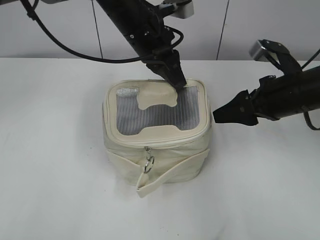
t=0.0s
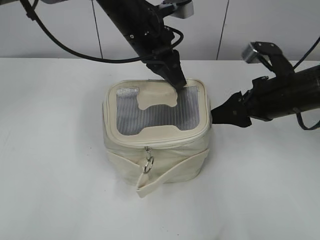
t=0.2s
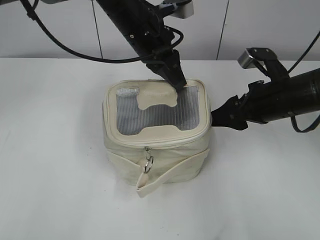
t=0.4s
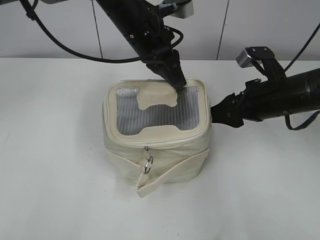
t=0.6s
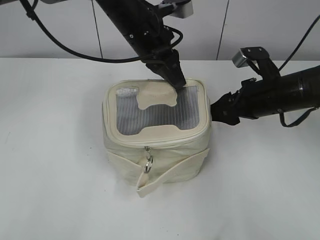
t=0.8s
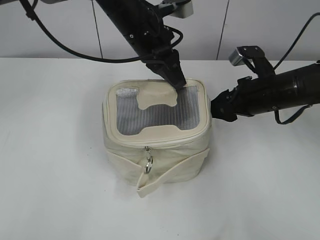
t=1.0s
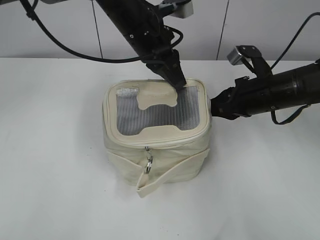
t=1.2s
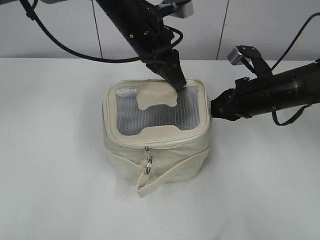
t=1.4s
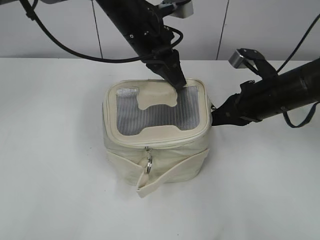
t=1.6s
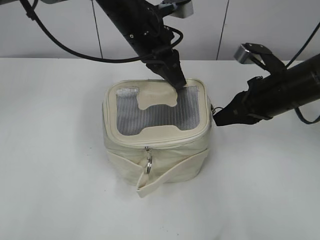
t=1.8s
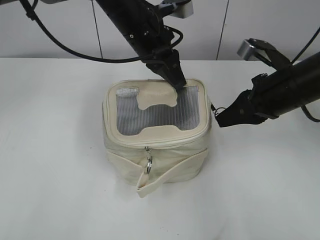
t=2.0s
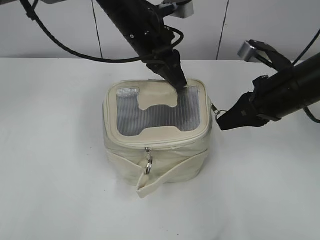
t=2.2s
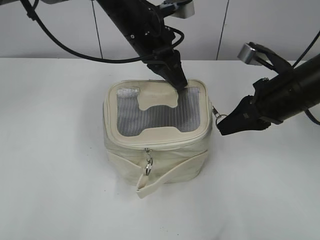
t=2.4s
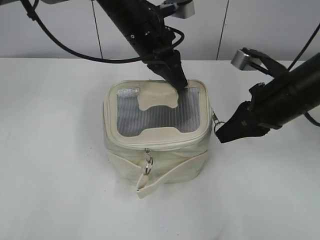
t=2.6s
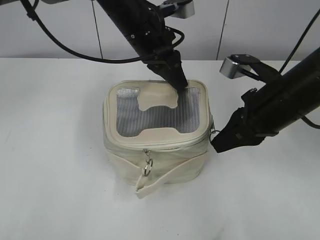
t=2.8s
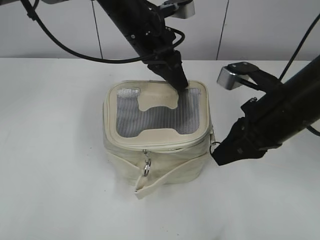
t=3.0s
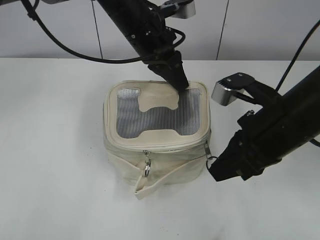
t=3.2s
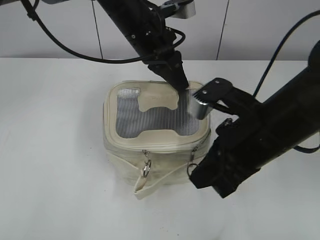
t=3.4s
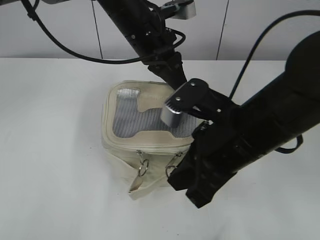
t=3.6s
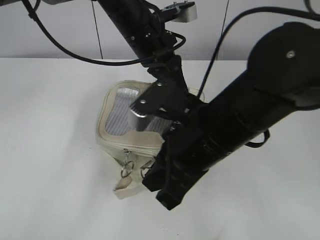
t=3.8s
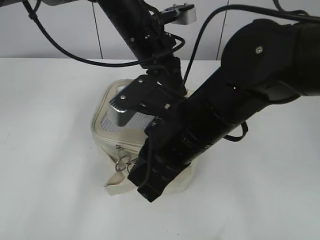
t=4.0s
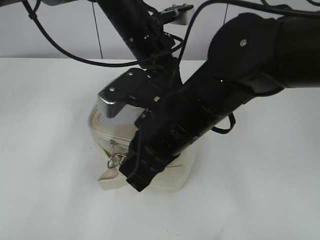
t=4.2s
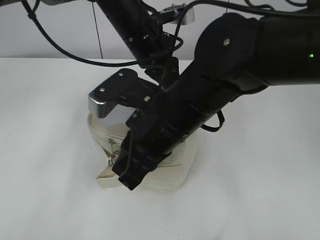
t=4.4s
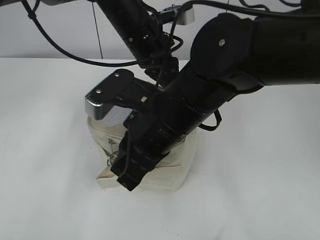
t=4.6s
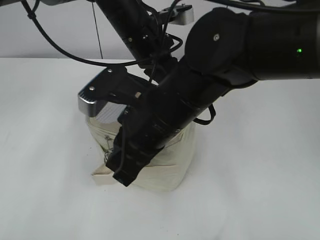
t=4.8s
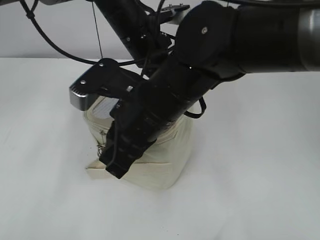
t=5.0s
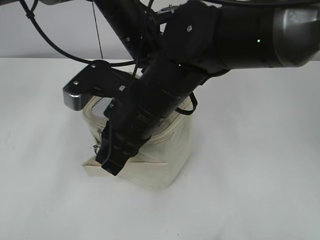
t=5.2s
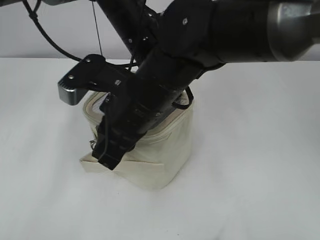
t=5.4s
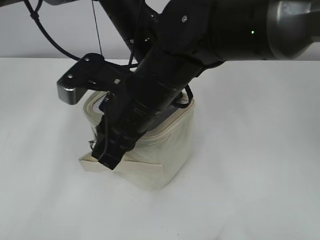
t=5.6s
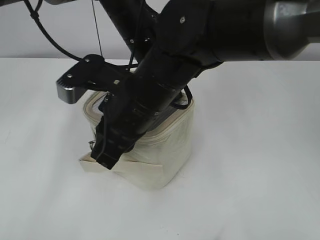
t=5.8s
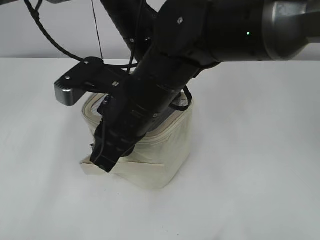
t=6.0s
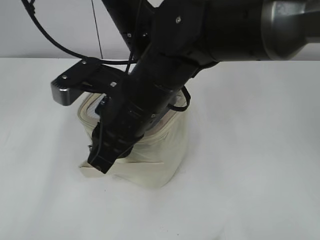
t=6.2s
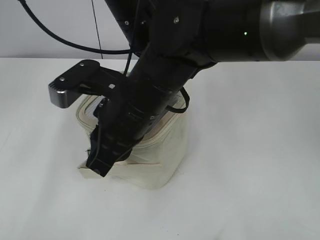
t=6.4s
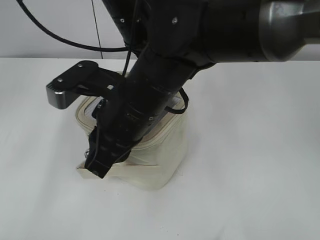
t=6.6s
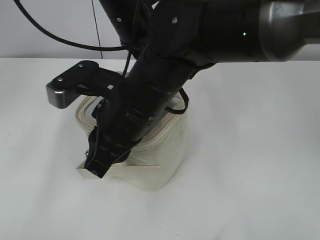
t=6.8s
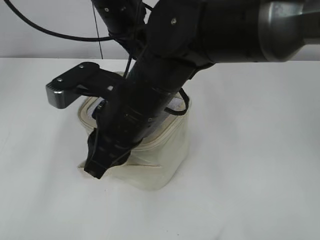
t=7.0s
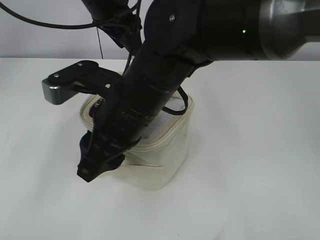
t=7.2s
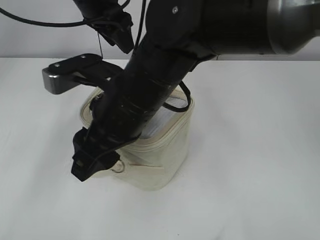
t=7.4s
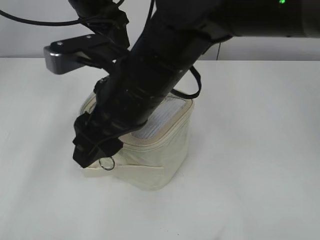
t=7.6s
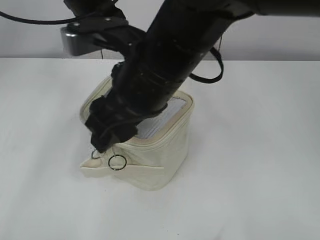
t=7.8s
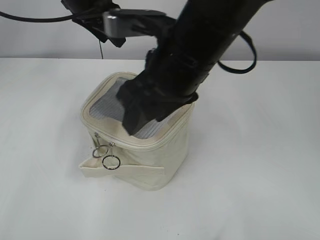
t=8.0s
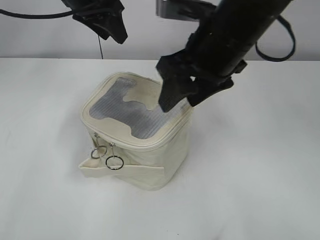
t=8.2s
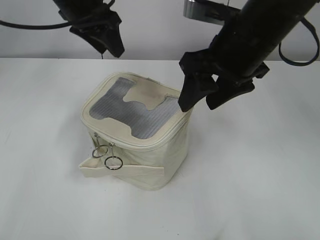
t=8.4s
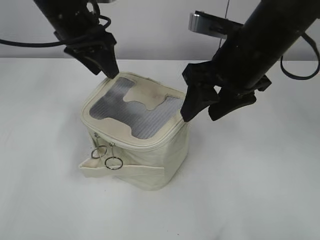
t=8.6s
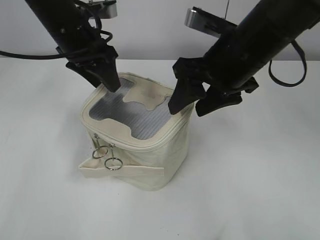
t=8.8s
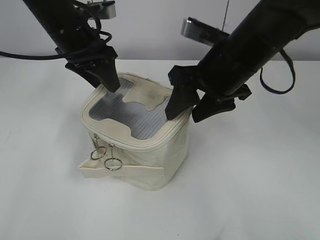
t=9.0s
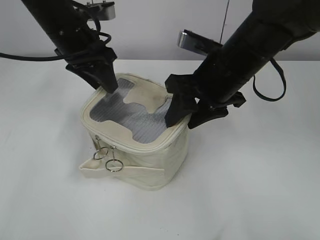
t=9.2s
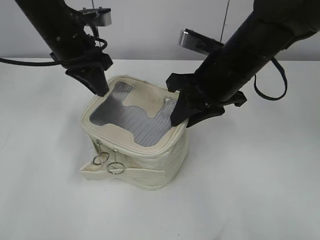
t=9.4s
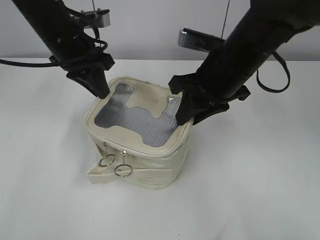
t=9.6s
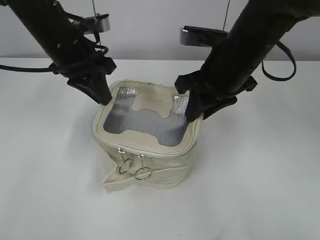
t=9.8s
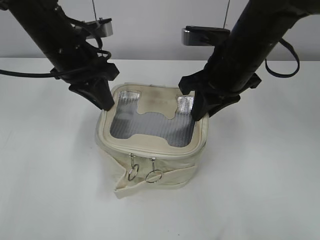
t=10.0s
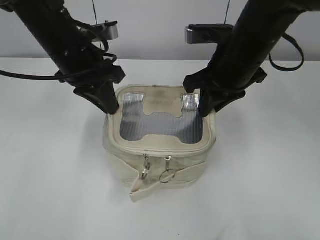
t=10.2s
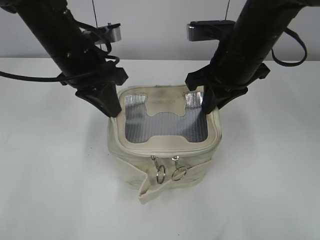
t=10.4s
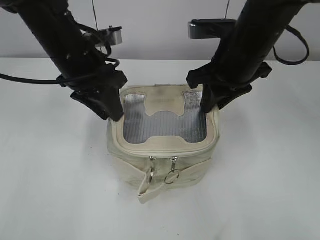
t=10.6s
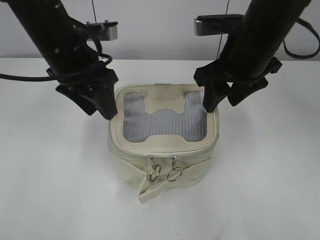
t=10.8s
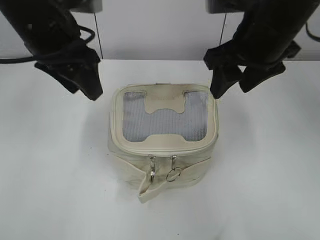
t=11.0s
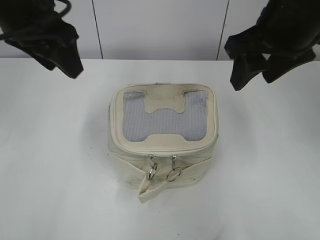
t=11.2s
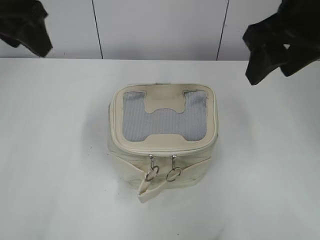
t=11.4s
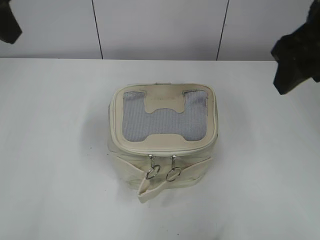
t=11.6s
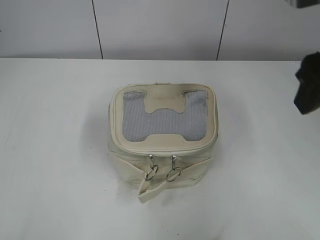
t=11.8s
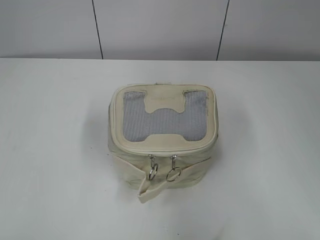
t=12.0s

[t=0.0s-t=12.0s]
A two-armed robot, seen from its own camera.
Step, t=0.0s to t=6.8s: Hold the bag with your left hand.
t=0.0s to t=1.6s: The right gripper closes its fingers.
t=1.6s to t=3.0s: The right gripper is displaced backward by roughly 5 cm.
t=3.0s to t=4.4s: The right gripper travels to the left by about 15 cm.
t=6.0s to t=7.6s: The right gripper opens. The left gripper is displaced to the left and upward by about 10 cm, and opens.
t=7.6s to t=9.0s: The right gripper is displaced to the right and forward by about 15 cm. Meanwhile the left gripper shifts approximately 5 cm downward.
t=9.0s to t=10.4s: The left gripper shifts by some 5 cm, and closes up; the right gripper closes.
t=10.4s to t=12.0s: The left gripper is displaced backward, upward and to the left by approximately 25 cm, and opens up. The right gripper shifts some 20 cm backward, to the right and upward, and opens its fingers.

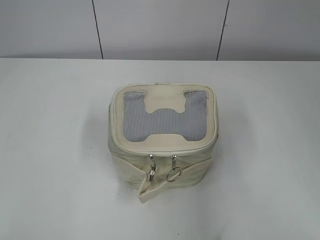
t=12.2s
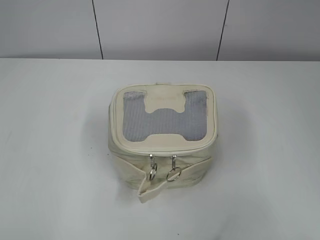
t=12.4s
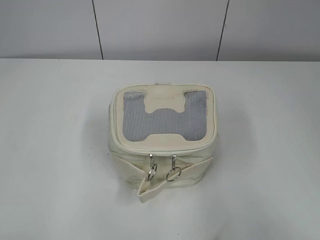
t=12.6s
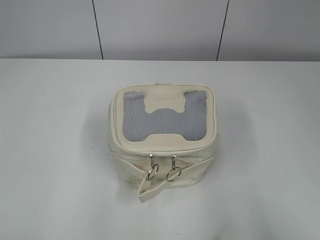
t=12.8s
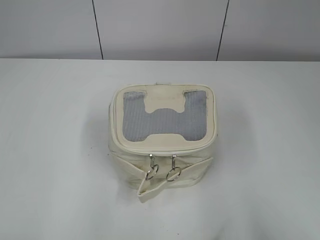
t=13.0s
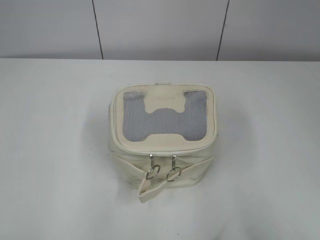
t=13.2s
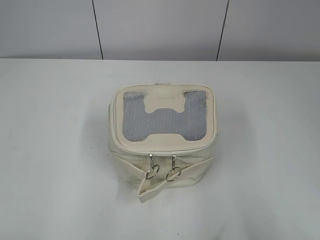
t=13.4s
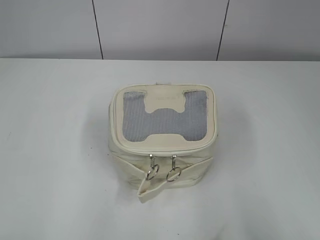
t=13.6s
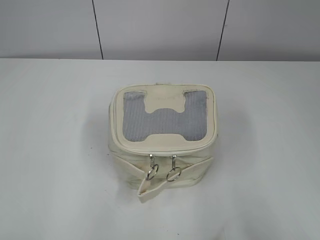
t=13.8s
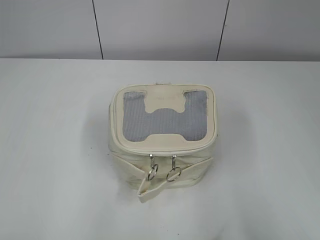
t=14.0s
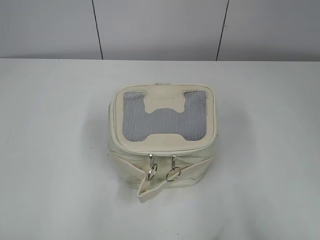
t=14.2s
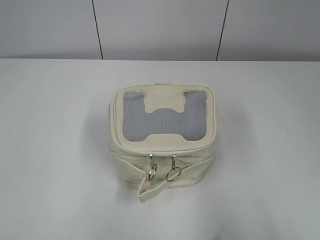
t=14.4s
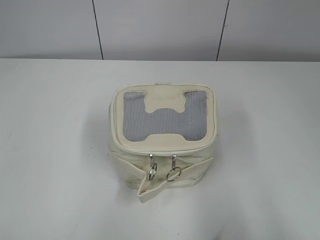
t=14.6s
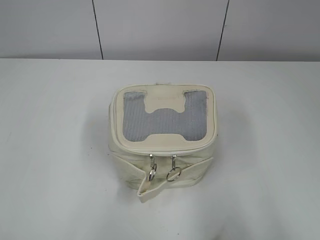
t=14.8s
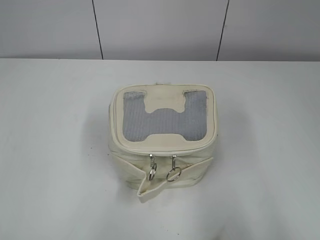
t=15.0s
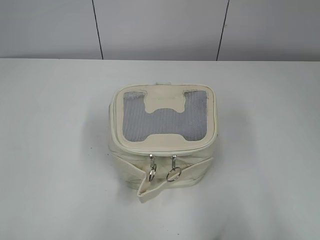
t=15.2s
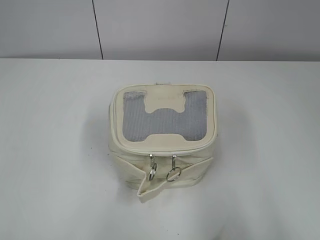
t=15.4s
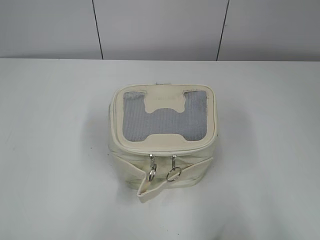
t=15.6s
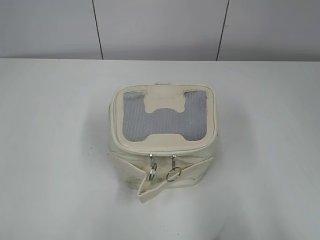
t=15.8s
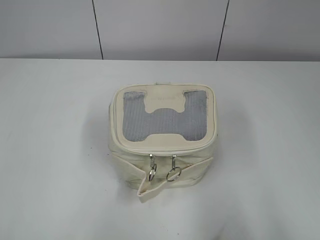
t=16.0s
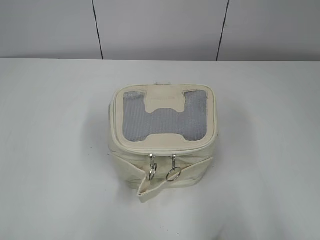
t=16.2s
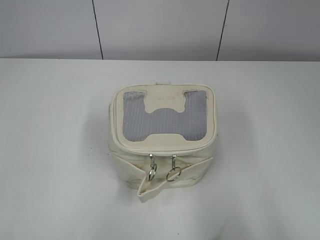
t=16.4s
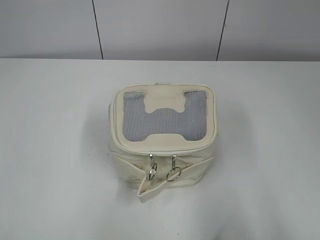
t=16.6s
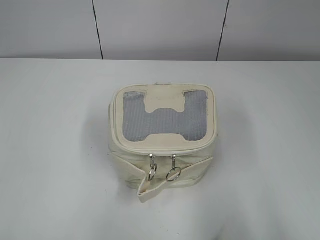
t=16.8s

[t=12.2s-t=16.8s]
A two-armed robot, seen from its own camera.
t=12.2s to t=13.8s: The right gripper shifts about 15 cm backward and to the right; the left gripper moves backward and downward, approximately 10 cm.
t=15.2s to t=16.8s: The two grippers keep their place.

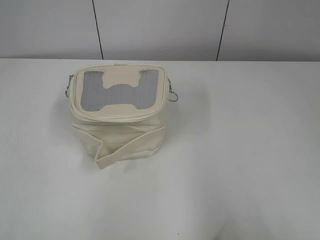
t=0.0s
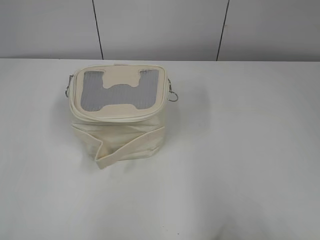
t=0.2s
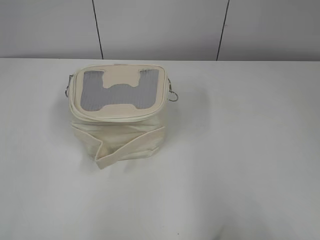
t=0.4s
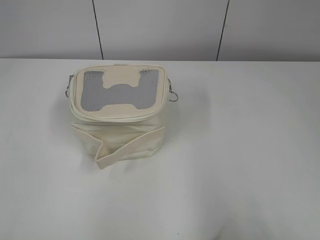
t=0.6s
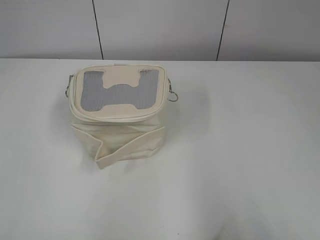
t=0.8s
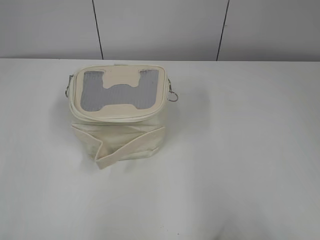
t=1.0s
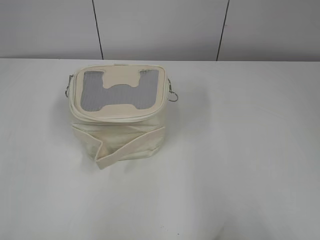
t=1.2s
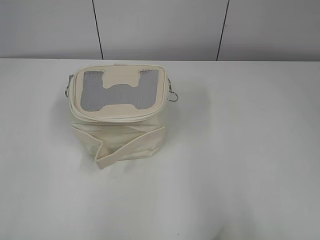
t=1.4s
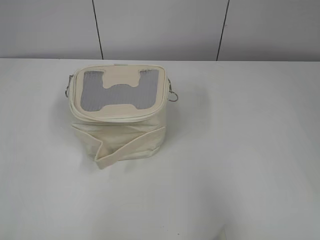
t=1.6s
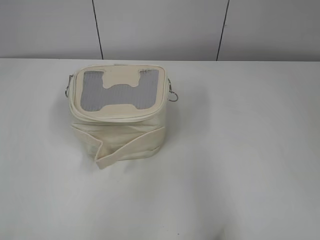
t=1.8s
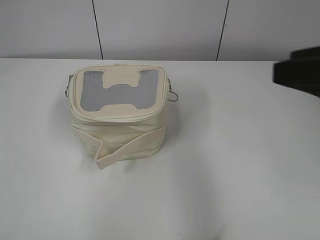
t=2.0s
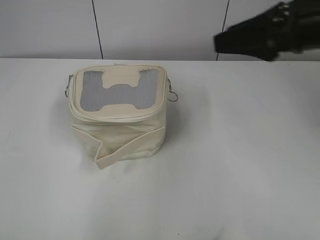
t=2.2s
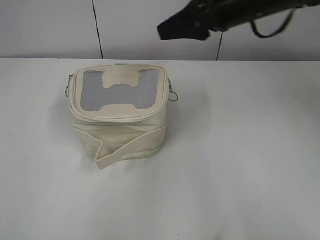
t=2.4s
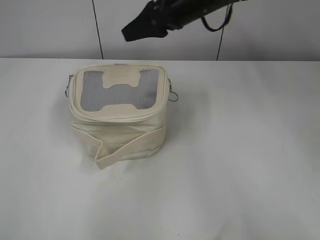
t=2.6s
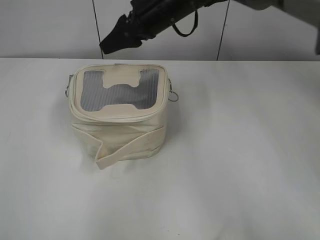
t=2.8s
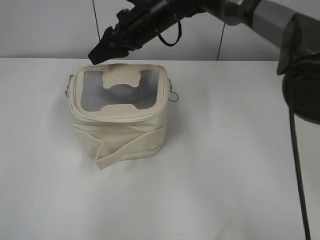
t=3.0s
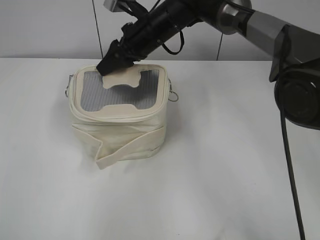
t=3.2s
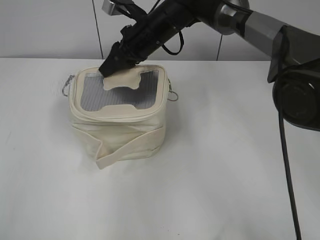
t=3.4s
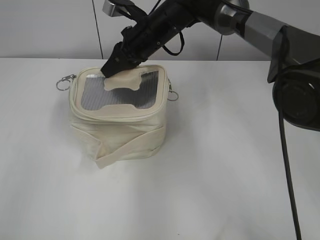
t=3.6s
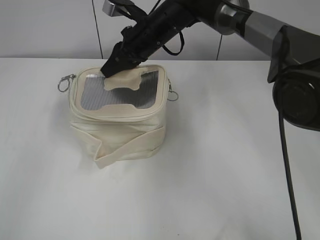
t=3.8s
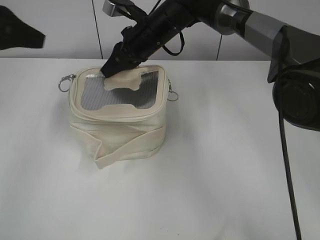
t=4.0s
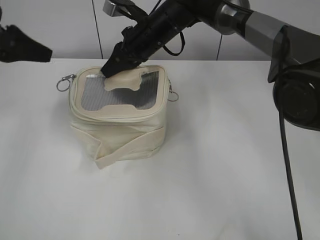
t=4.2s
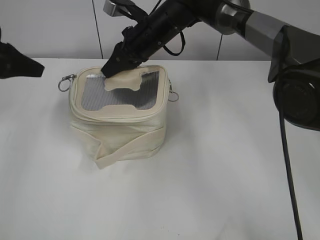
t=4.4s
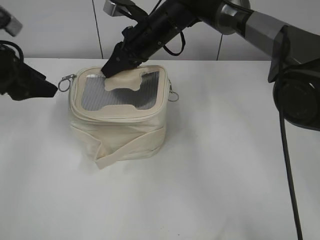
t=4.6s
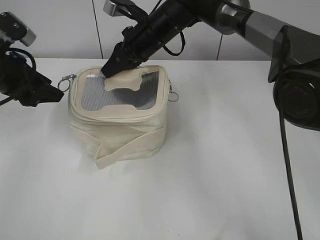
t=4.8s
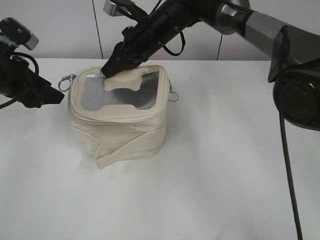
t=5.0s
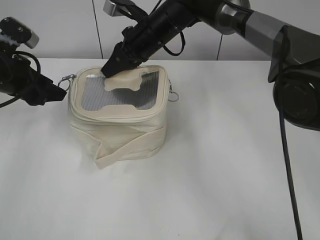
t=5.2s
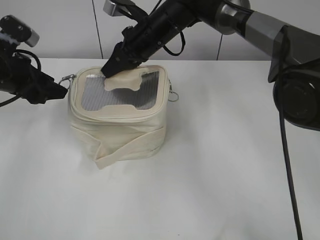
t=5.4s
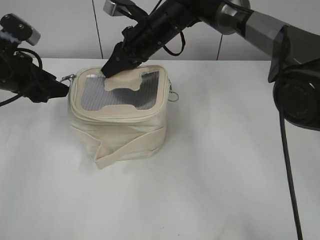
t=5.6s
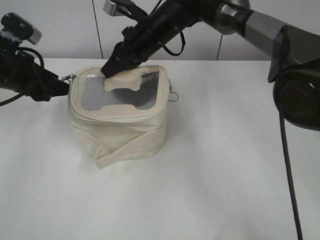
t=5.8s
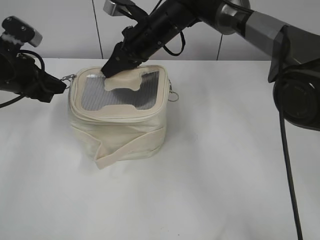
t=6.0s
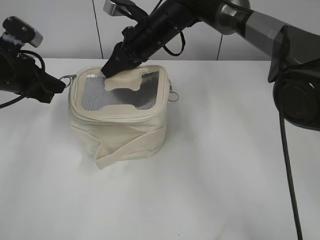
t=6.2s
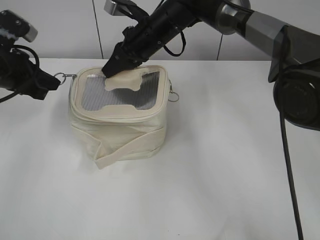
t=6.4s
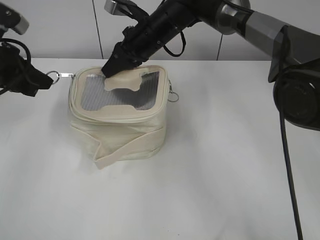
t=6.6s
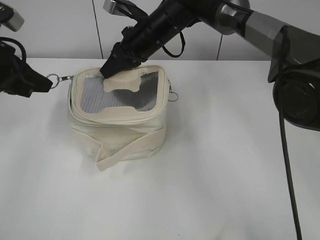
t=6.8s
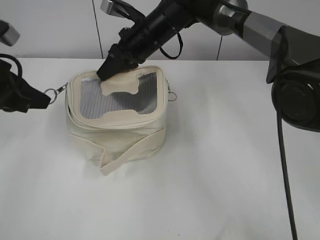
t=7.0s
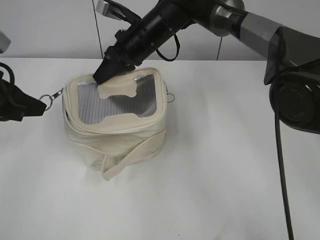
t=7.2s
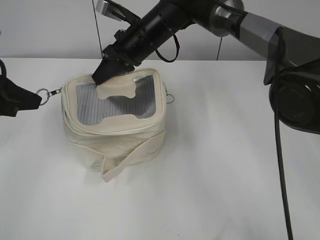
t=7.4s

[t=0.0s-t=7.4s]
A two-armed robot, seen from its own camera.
Step, t=0.0s to t=3.4s: Grasp the bag with right gripper.
t=1.4s to t=3.0s: The right gripper moves forward and to the left, approximately 50 cm.
t=3.0s to t=4.4s: The right gripper closes up; the left gripper shifts approximately 35 cm forward, and opens up.
t=4.4s to t=6.0s: The left gripper heads downward, covering some 5 cm, and closes.
t=6.0s to t=7.4s: The left gripper travels backward by about 10 cm, and closes up.
